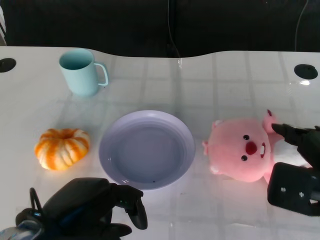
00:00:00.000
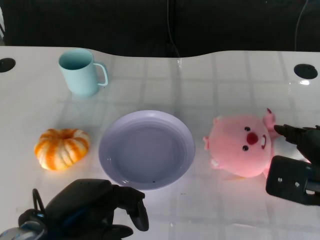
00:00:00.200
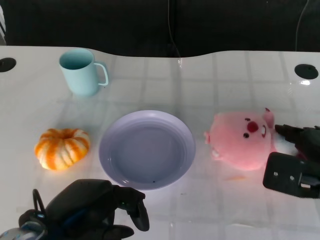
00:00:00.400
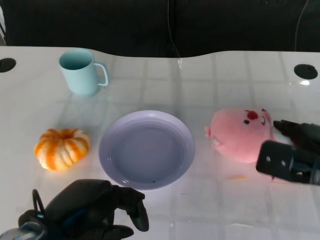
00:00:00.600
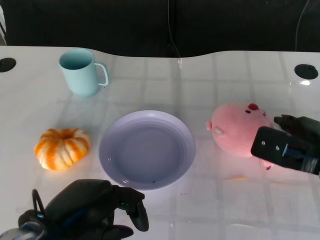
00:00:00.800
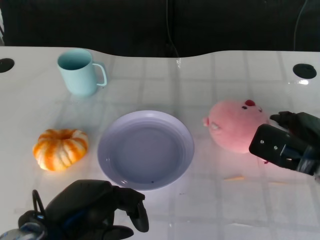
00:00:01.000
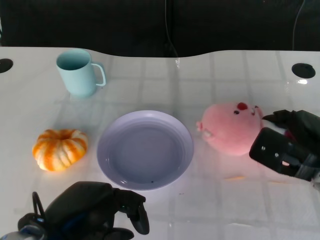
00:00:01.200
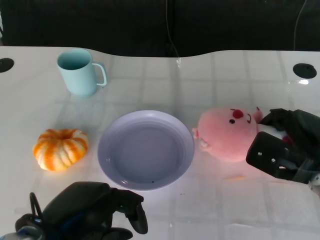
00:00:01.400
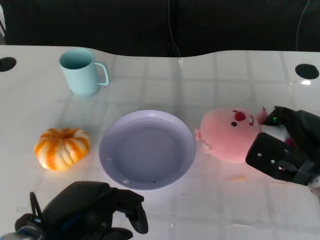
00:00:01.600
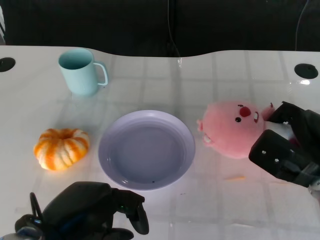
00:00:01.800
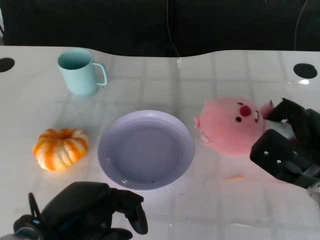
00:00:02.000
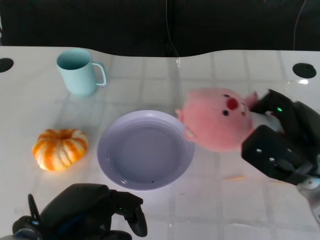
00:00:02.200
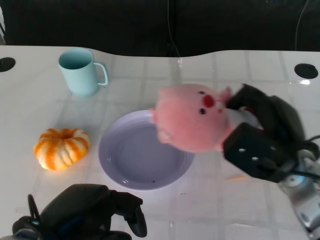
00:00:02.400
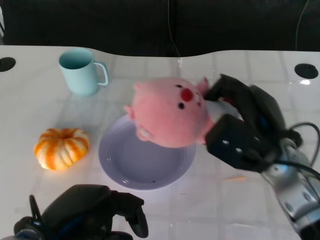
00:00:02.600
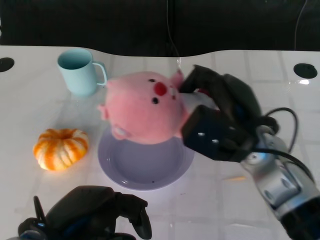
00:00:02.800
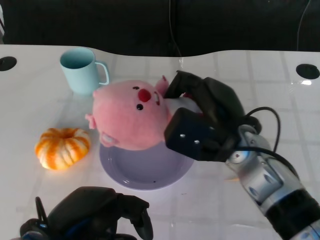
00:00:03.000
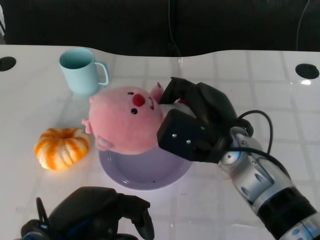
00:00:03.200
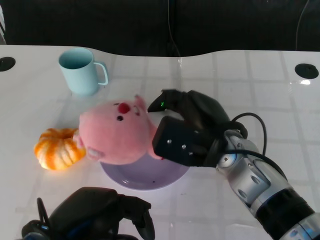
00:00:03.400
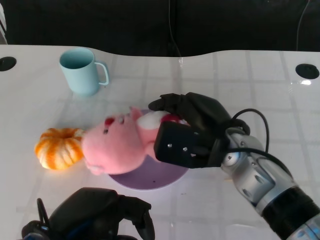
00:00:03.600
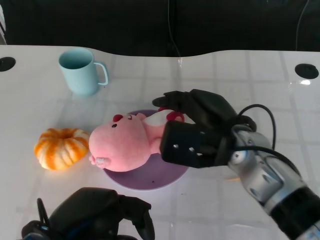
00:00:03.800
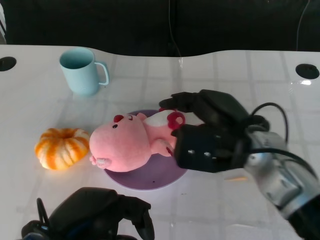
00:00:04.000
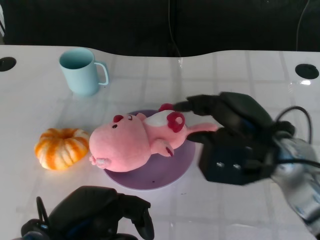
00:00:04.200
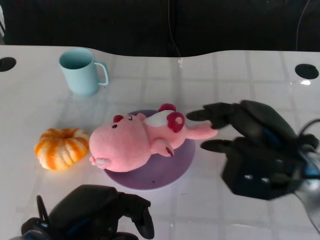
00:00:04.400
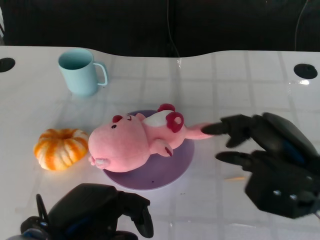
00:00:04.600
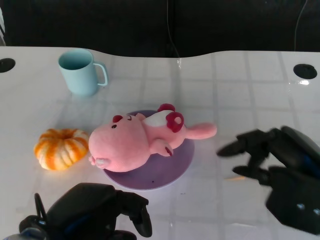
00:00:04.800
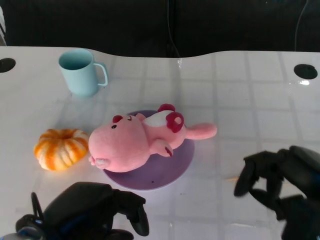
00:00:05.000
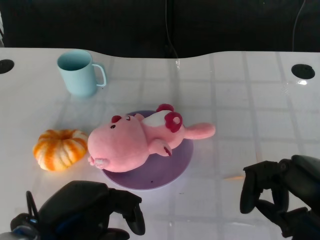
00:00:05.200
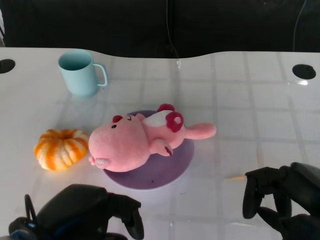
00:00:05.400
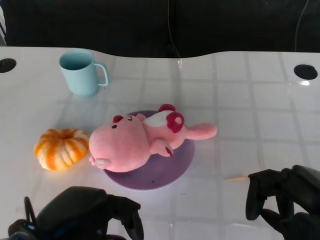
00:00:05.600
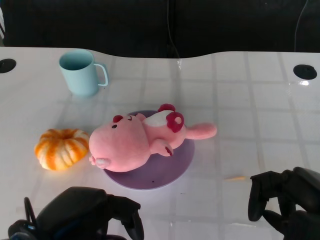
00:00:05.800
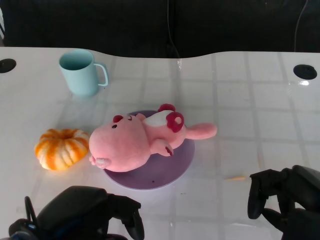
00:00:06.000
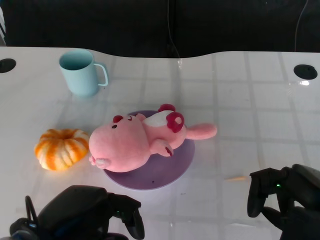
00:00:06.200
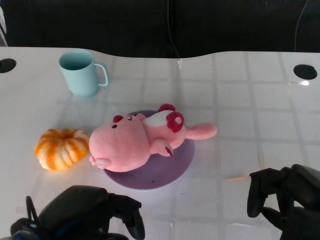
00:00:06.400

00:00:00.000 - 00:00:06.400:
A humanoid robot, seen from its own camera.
Task of the whole recording: Pick up the doll on the other side of the plate and place it into the plate.
Step, 00:00:00.000 - 00:00:02.400: Grasp the pink doll with the right gripper.
Step, 00:00:02.600 - 00:00:04.200: Place the pink doll into the plate with the right gripper.
00:00:00.000 - 00:00:01.600: The right hand shifts approximately 10 cm forward and downward.
00:00:01.600 - 00:00:03.200: The right hand travels to the left by some 15 cm.
00:00:03.200 - 00:00:04.800: The right hand heads to the right and backward, covering roughly 15 cm.
00:00:04.800 - 00:00:06.400: The hands stay close to where they were, moving slightly.

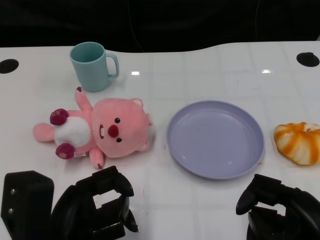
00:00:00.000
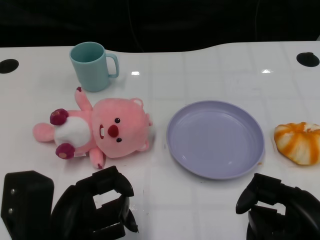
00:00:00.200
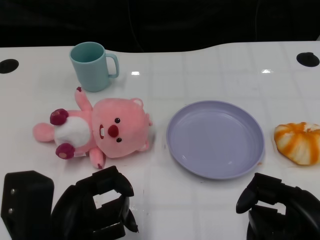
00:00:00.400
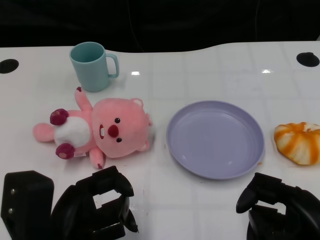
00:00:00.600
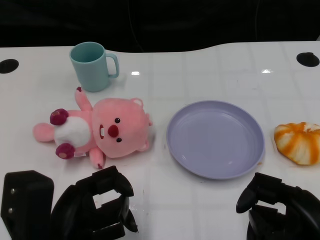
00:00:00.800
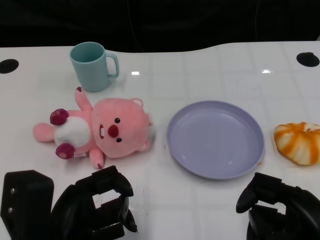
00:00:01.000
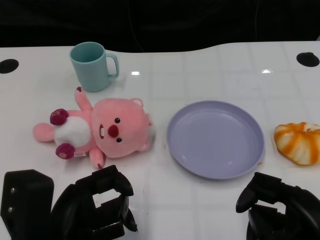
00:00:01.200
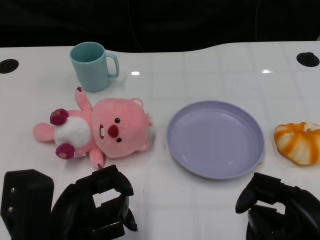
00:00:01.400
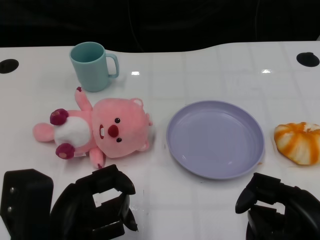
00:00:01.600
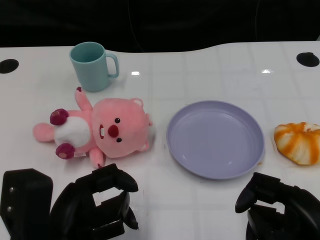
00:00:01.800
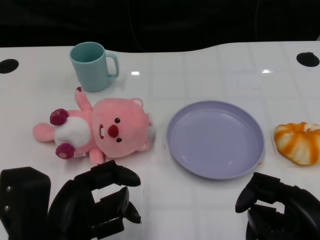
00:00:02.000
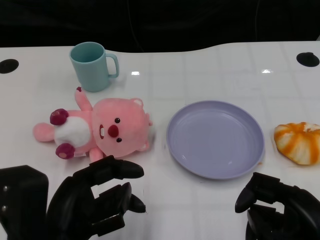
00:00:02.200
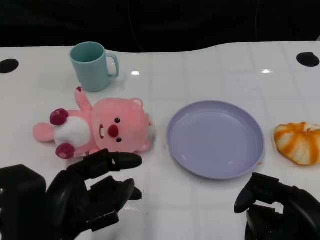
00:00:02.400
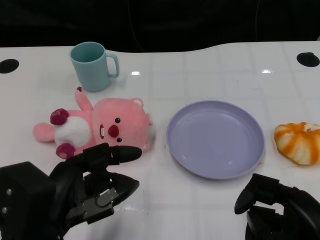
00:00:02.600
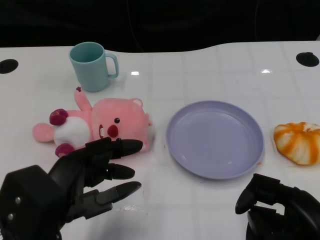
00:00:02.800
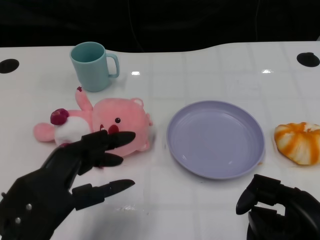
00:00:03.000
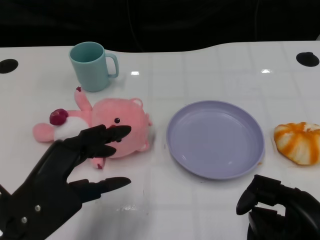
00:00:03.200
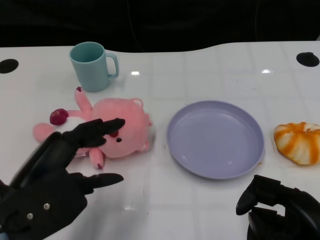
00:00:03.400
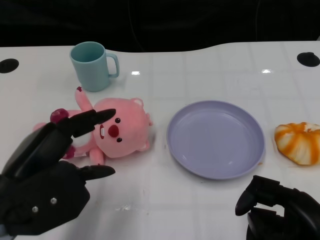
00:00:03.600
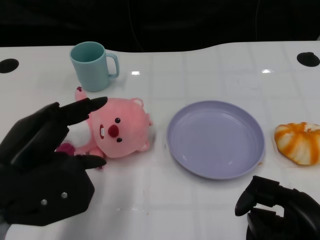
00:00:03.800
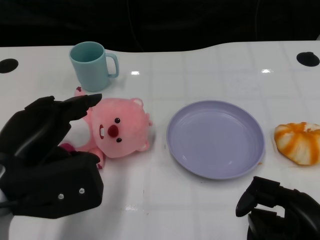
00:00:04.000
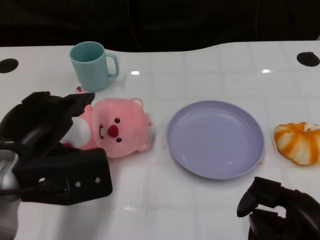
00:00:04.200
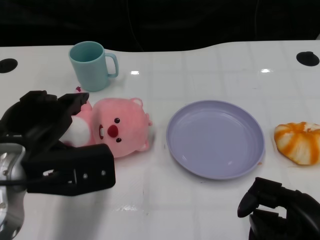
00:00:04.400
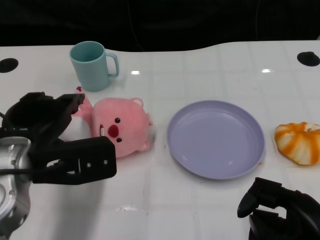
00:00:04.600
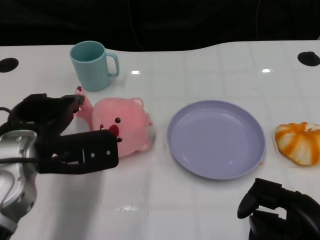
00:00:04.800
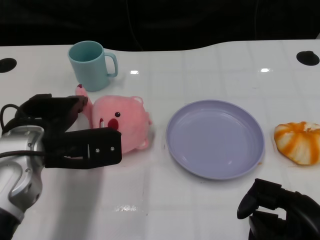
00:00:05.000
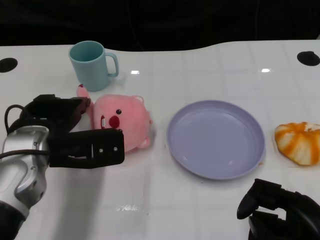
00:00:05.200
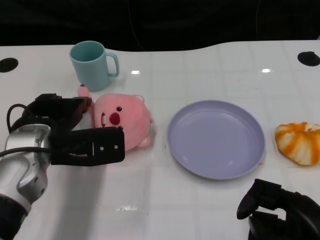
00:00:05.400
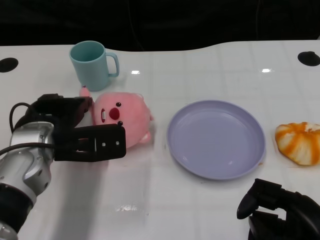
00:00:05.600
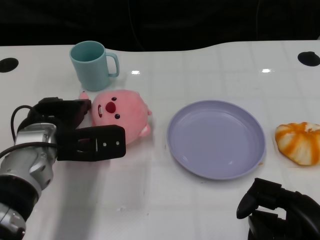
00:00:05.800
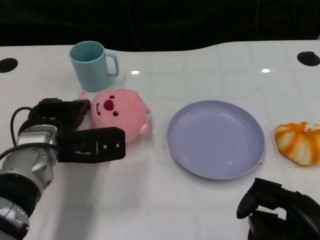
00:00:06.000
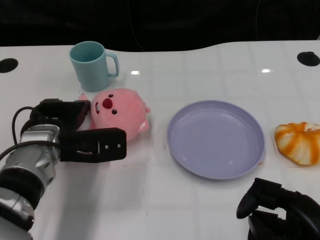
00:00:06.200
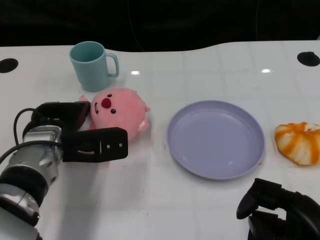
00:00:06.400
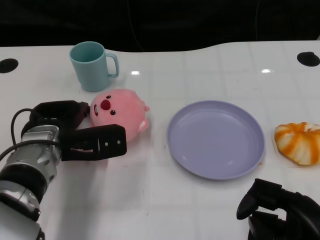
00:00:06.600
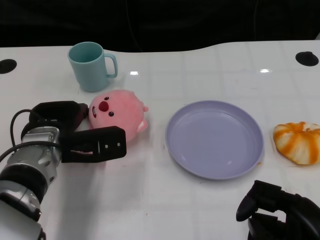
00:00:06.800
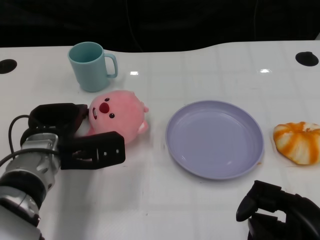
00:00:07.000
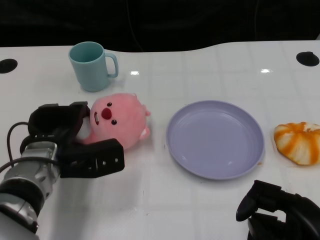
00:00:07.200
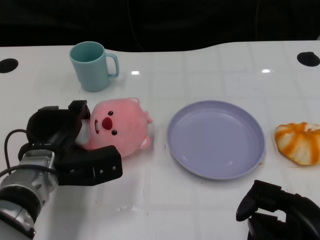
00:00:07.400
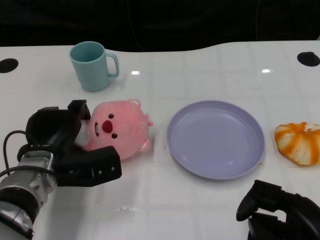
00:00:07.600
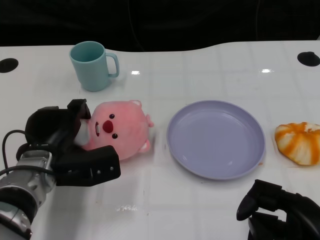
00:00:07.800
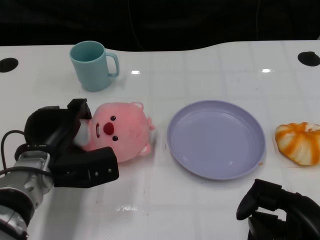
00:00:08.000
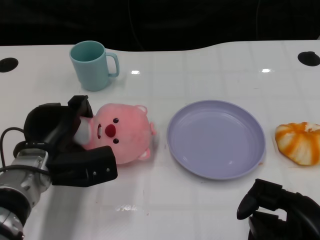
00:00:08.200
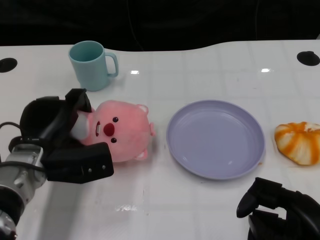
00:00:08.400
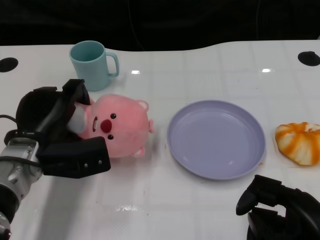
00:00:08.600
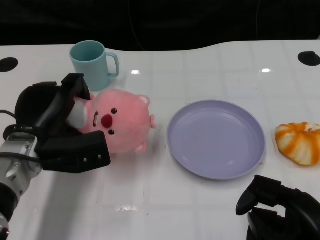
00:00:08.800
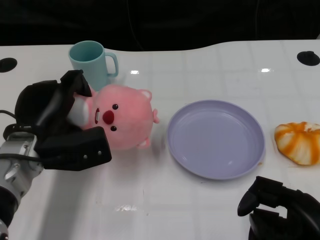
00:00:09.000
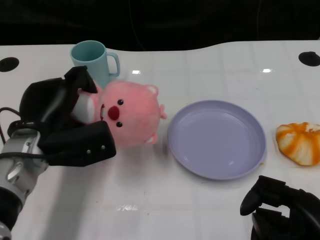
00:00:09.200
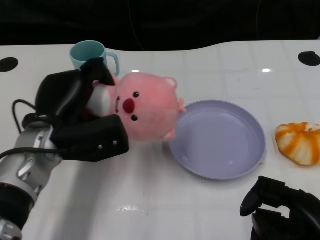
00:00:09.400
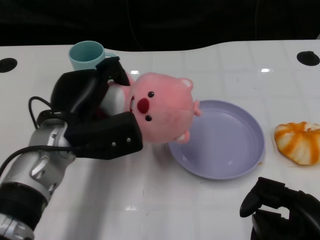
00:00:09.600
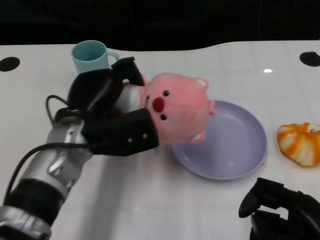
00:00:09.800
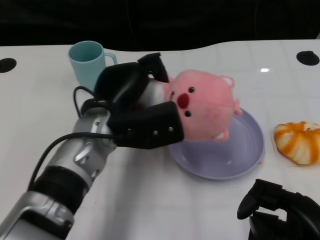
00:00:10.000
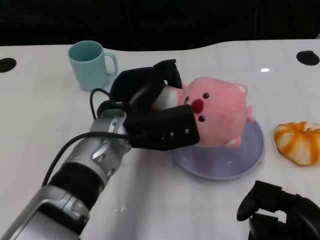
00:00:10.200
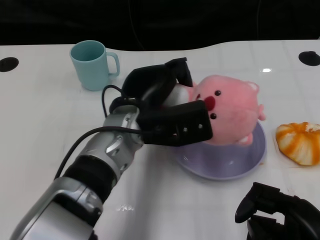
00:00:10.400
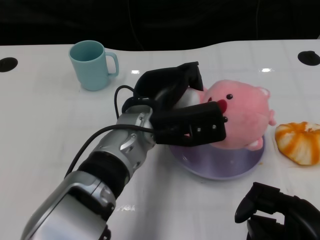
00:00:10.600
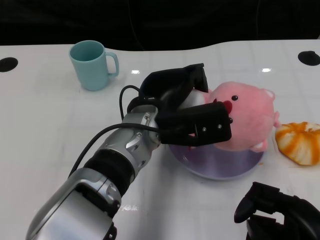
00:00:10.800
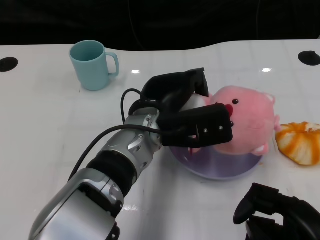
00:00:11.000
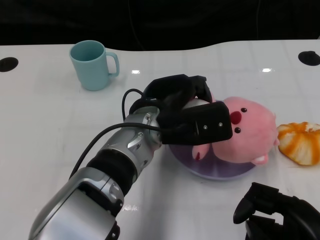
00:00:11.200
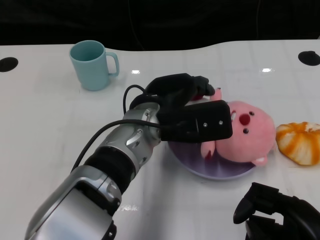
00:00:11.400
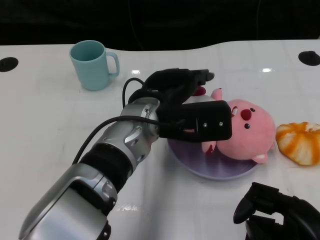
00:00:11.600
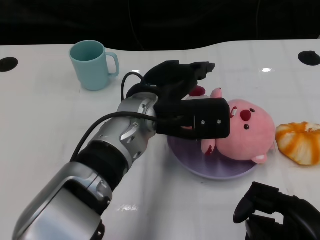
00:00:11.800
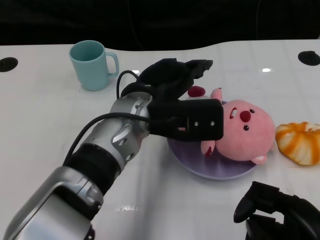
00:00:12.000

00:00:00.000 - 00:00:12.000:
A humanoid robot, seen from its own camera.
Task of the whole recording: Pick up the doll on one side of the plate and place it into the plate.
Step, 00:00:01.800 - 00:00:08.200: Grasp the pink doll with the left gripper.
Step, 00:00:08.400 - 00:00:11.600: Place the pink doll into the plate with the left gripper.
00:00:03.000 - 00:00:04.400: The left hand travels forward by some 5 cm.
00:00:04.400 - 00:00:06.000: The left hand travels forward and downward by approximately 10 cm.
00:00:06.000 - 00:00:07.600: There are only small adjustments of the hands.
00:00:07.600 - 00:00:09.000: The hands make only small movements.
00:00:09.000 - 00:00:10.400: The left hand travels to the right by some 15 cm.
00:00:10.400 - 00:00:12.000: The hands stay close to where they were, moving slightly.

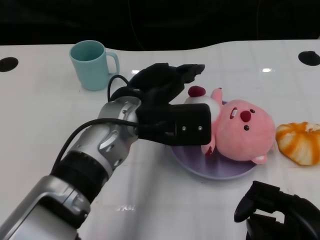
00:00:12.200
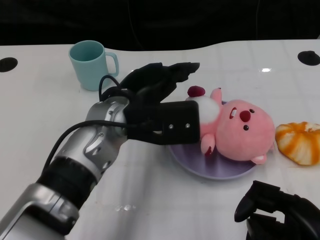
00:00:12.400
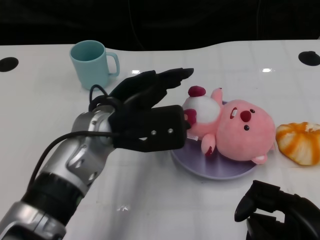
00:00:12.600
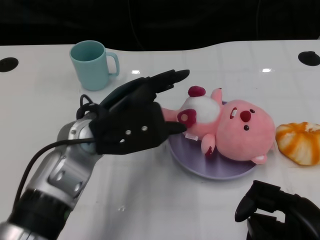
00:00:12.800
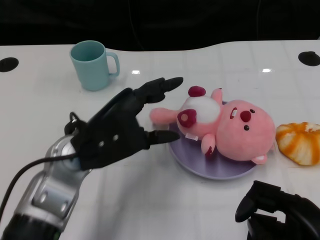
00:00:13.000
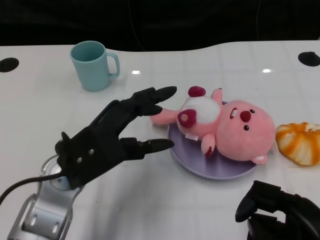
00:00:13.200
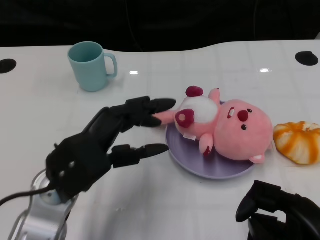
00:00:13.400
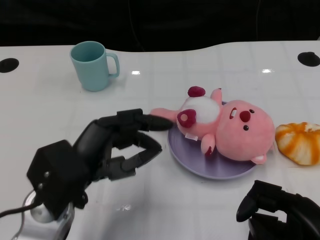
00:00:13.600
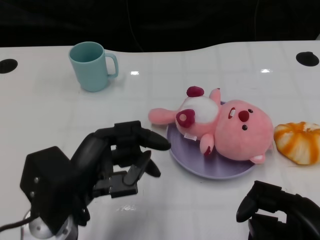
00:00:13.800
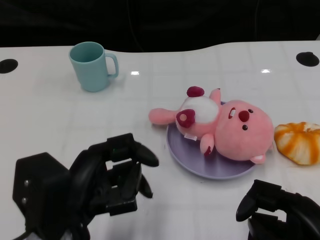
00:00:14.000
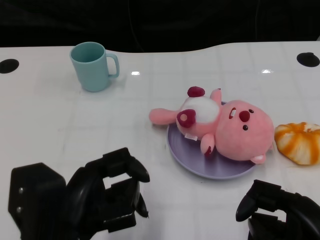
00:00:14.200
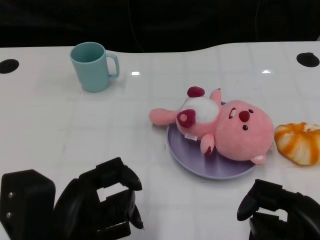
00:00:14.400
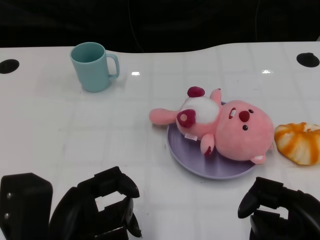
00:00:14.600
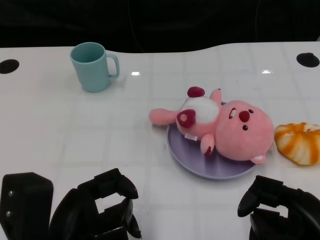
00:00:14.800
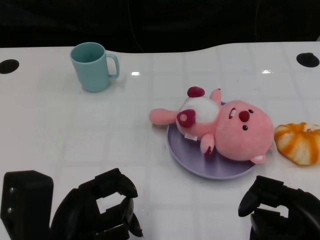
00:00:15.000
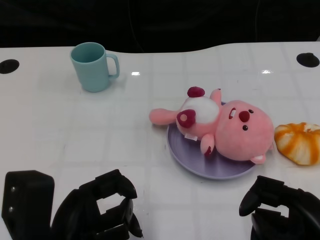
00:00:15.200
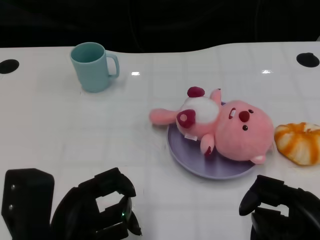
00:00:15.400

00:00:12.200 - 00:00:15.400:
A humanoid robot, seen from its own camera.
Task of the whole recording: Pick up the doll on one side of the plate and place it into the plate.
00:00:12.200 - 00:00:13.800: The left hand shifts some 15 cm backward and to the left.
00:00:13.800 - 00:00:15.400: The left hand is displaced backward by roughly 5 cm.
